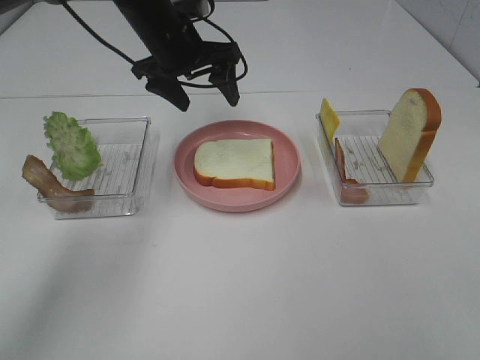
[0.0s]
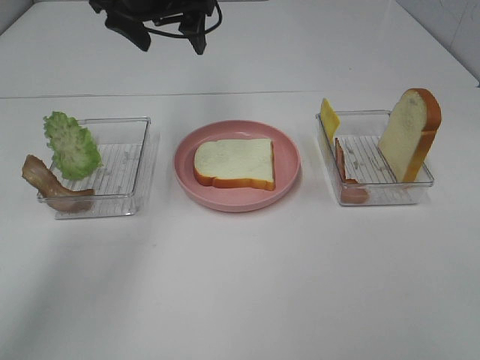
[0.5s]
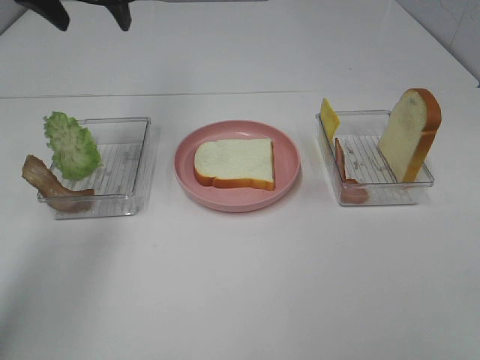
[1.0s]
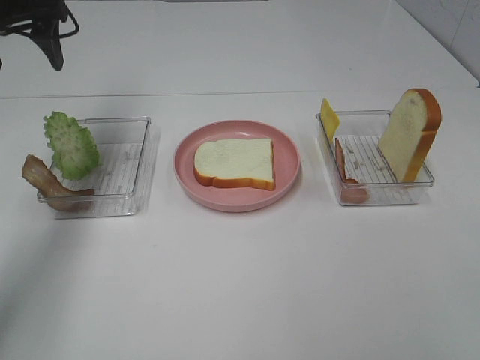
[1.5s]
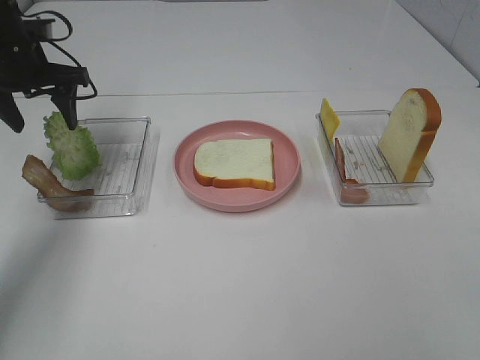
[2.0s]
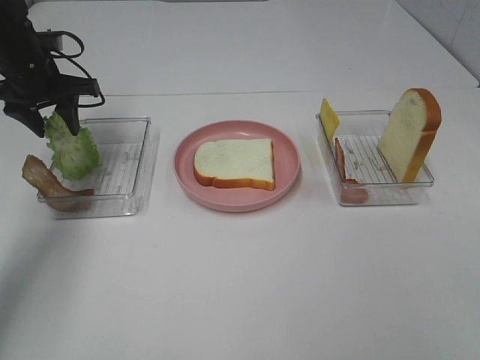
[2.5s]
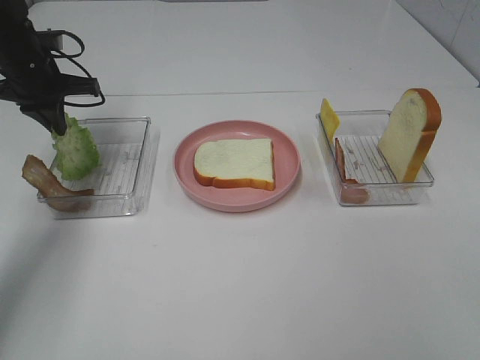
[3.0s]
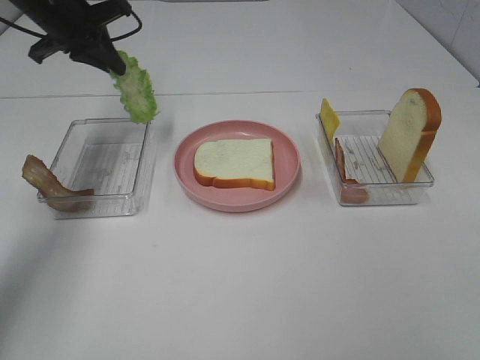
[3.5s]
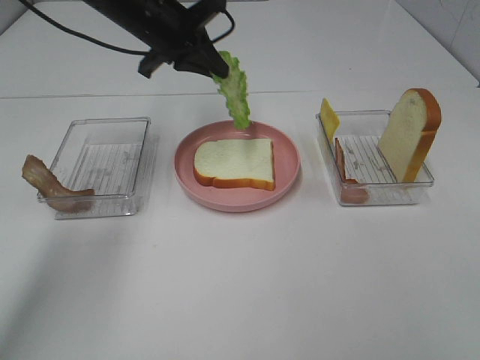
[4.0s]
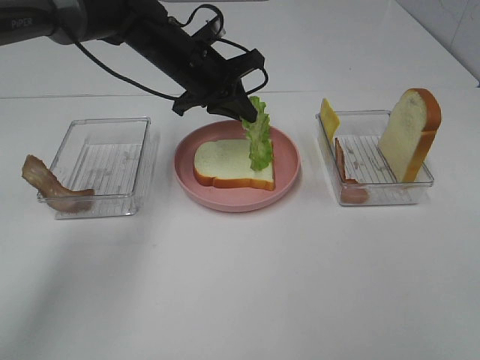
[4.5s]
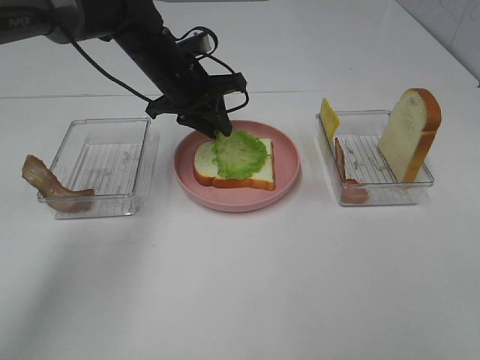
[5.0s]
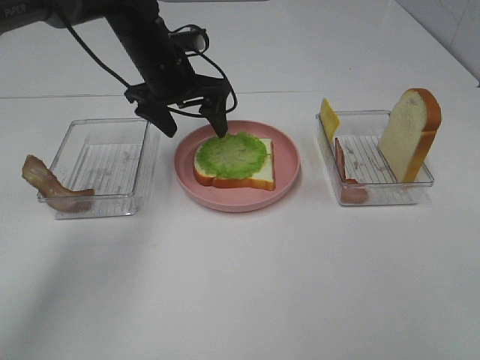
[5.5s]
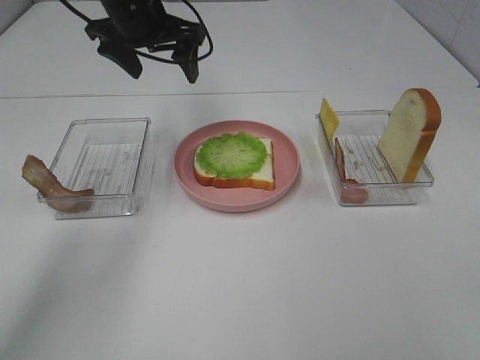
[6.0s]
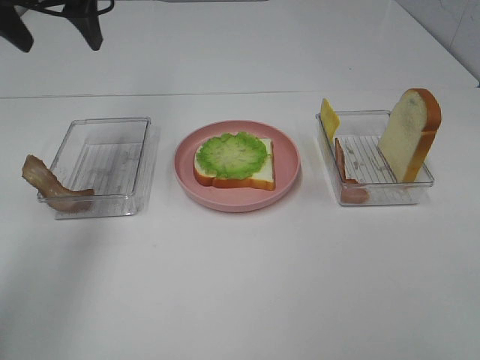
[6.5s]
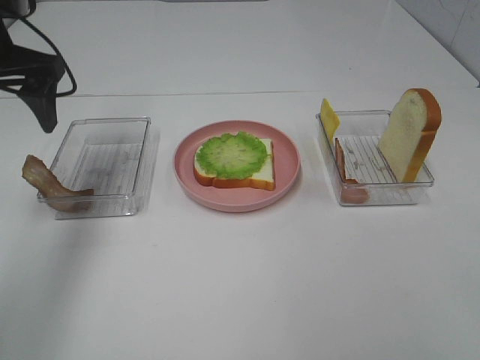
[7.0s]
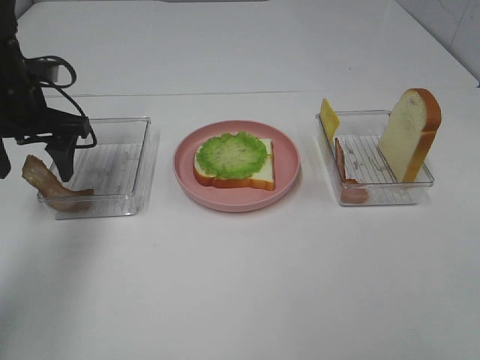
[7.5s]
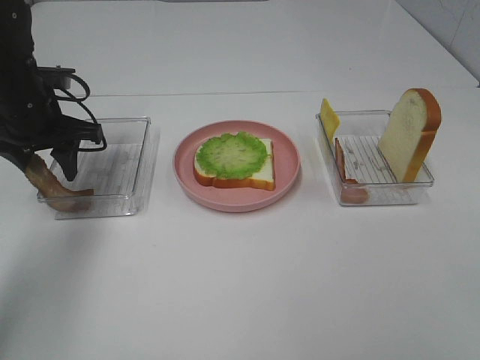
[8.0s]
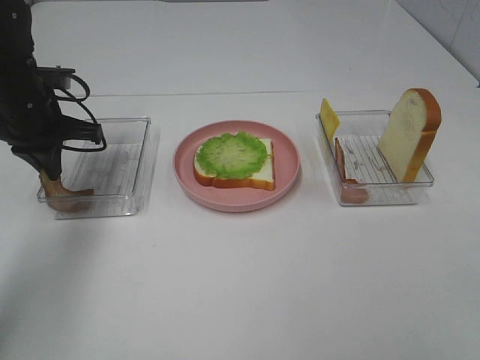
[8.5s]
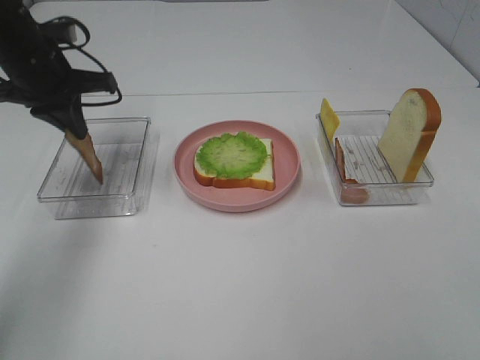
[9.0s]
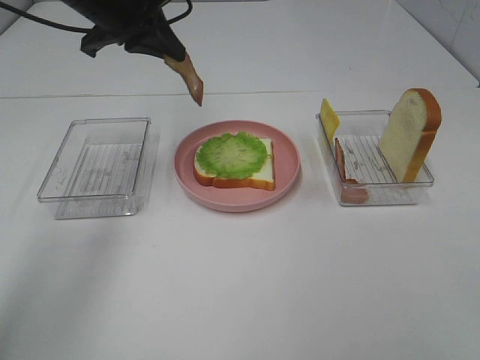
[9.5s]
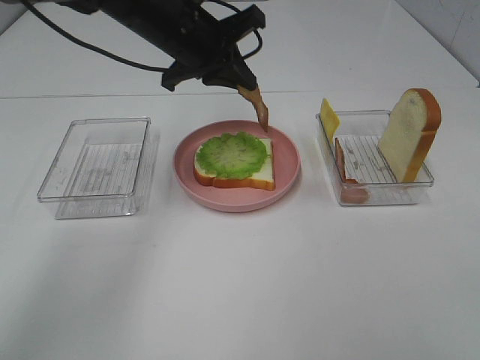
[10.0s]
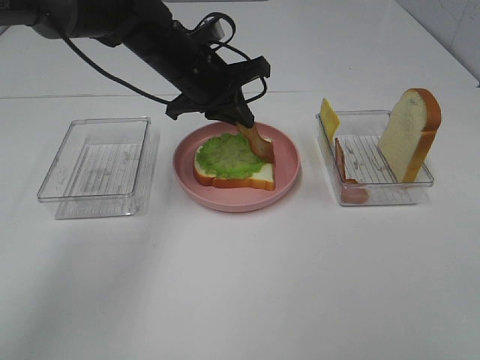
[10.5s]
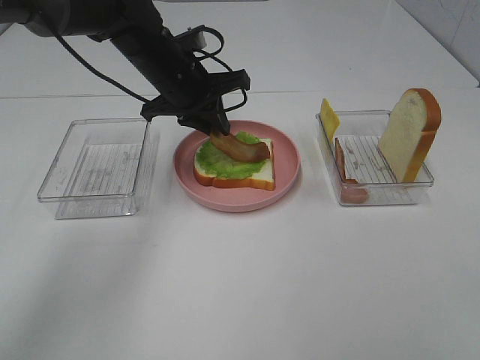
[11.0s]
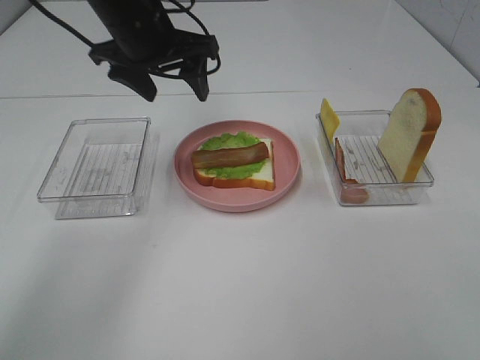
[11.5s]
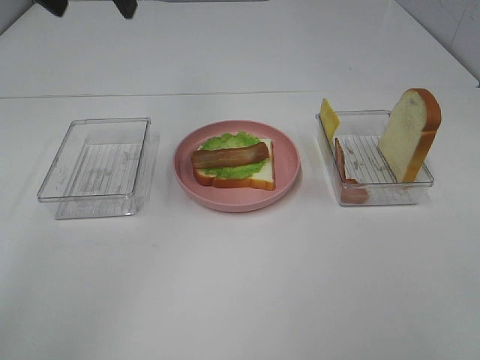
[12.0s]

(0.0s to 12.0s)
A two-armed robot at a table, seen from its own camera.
Task of the whole recording: Make sandwiches.
Step, 0.5s - 2.5s: Left hand:grab the lettuce slice.
Step, 3.0s - 5.0s: Left hand:place the lettuce slice on the bread slice.
Step, 5.5s - 8.0s: Left hand:grab the bacon.
Step, 8.5s - 11.0s: Left hand:place bacon on lettuce slice.
0.0s - 2.0s: The left gripper travels to the left by roughly 20 cm.
2.0s - 4.0s: The left gripper moves to the right, approximately 15 cm, and closes its fingers.
4.0s - 6.0s: The left gripper reaches approximately 5 cm downward, then returns, and opens.
6.0s - 8.0s: The left gripper travels to the left, downward and backward by approximately 15 cm, and closes its fingers.
8.0s - 10.0s: The left gripper moves to the right, approximately 20 cm, and closes.
10.0s - 12.0s: The left gripper shifts about 20 cm upward, to the left and backward, and opens its fingers.

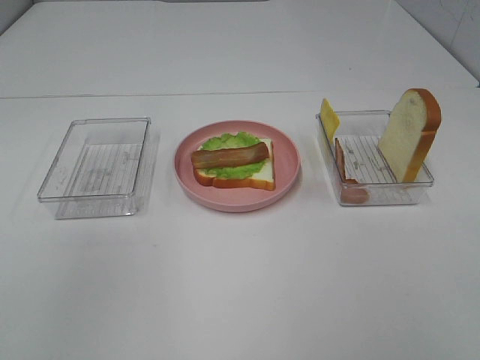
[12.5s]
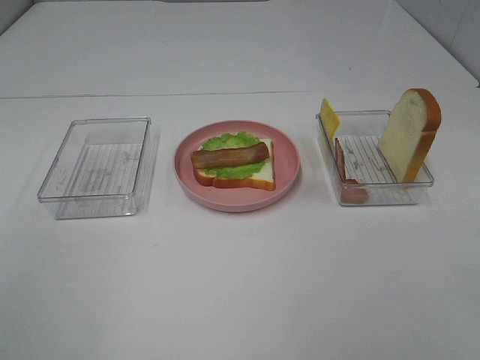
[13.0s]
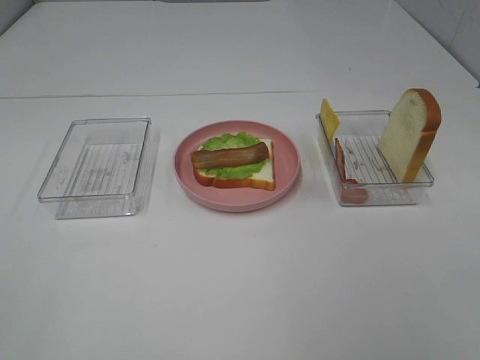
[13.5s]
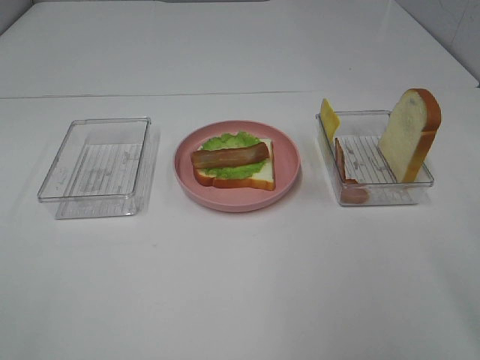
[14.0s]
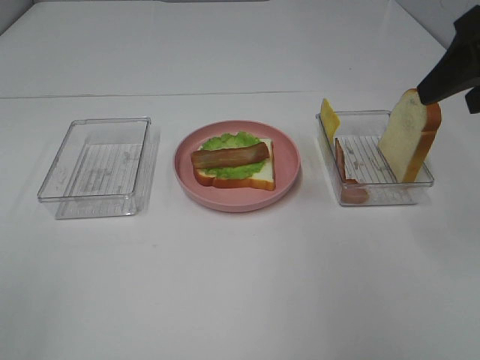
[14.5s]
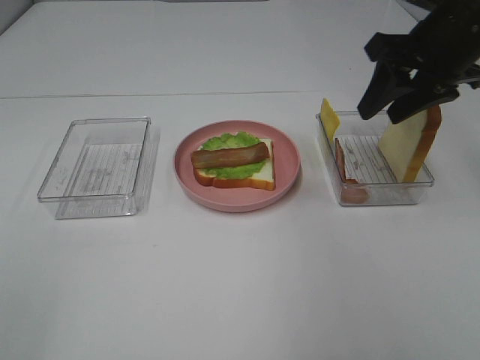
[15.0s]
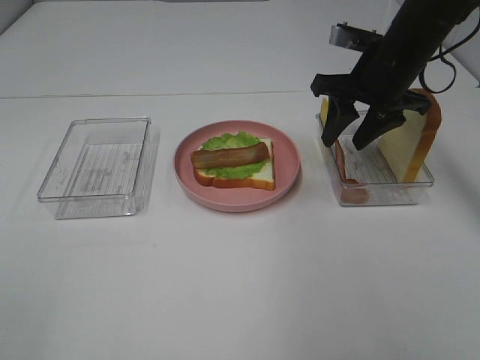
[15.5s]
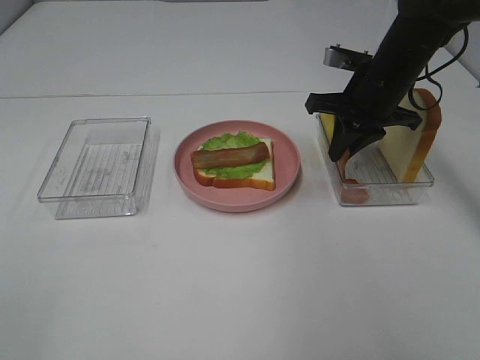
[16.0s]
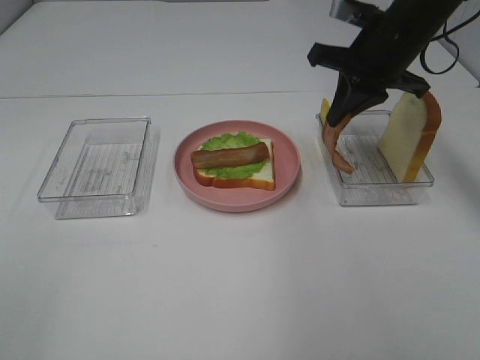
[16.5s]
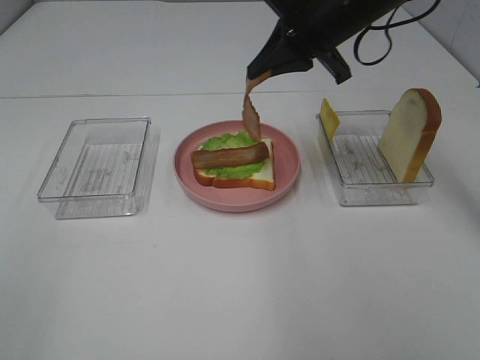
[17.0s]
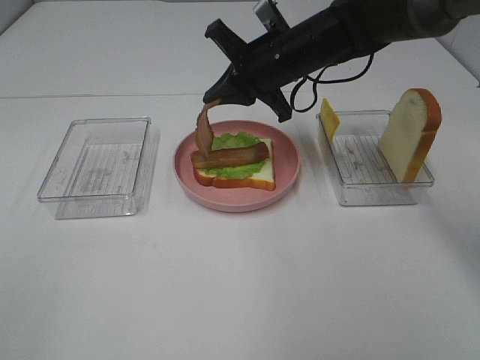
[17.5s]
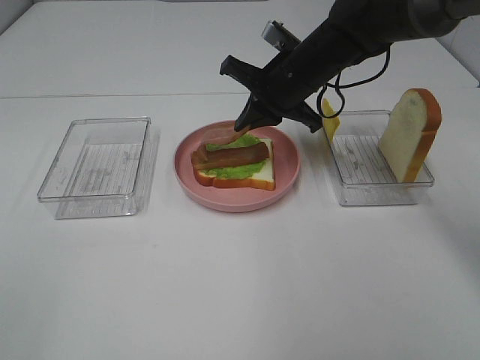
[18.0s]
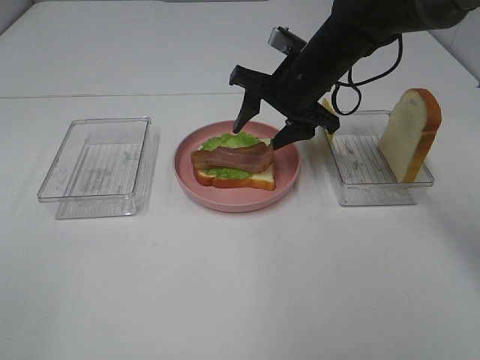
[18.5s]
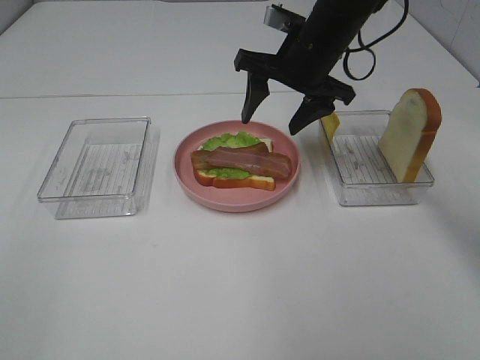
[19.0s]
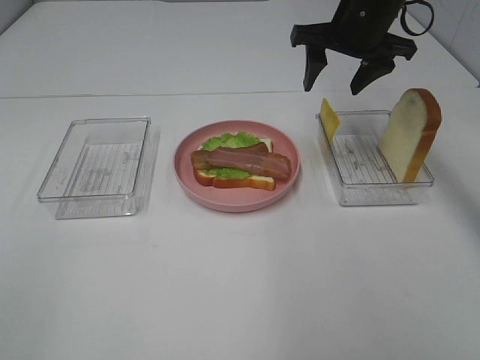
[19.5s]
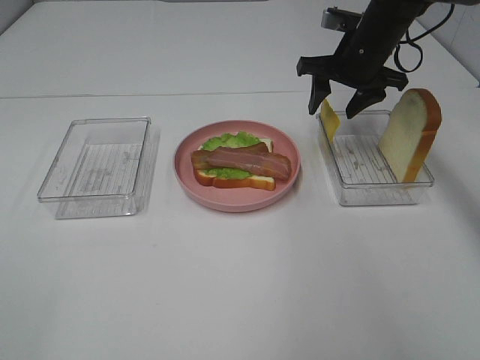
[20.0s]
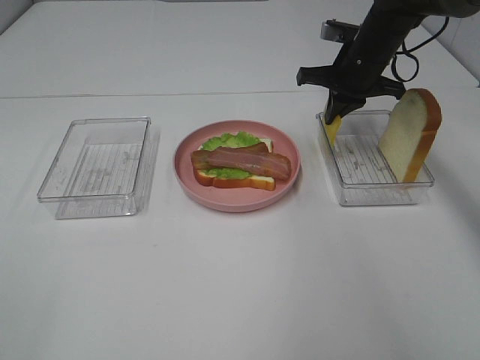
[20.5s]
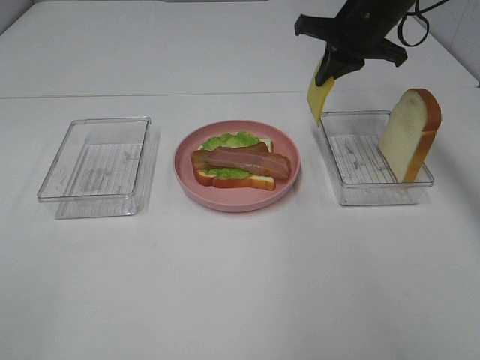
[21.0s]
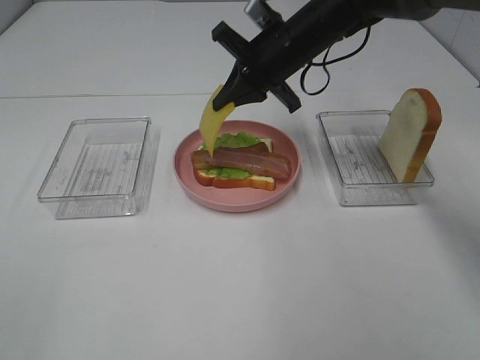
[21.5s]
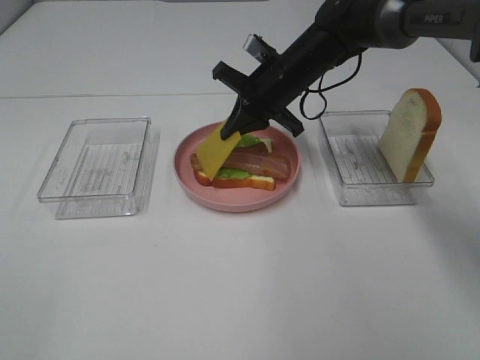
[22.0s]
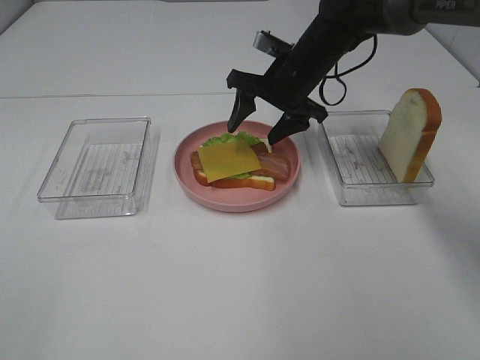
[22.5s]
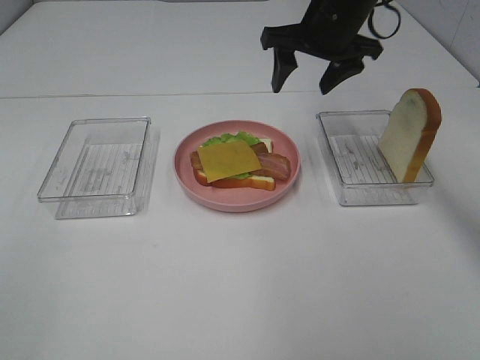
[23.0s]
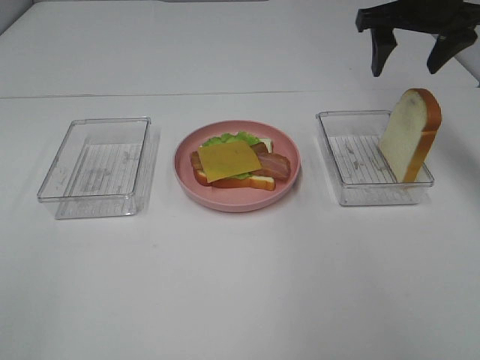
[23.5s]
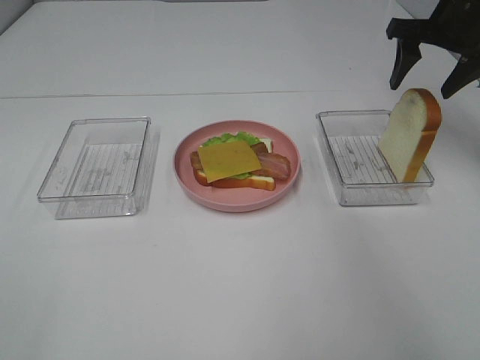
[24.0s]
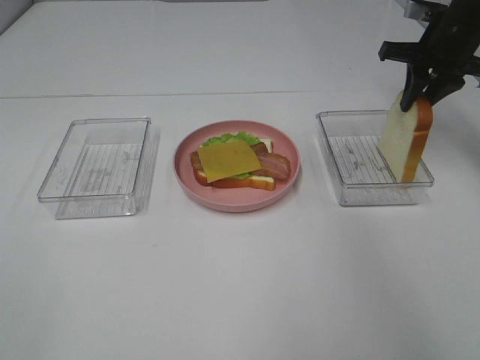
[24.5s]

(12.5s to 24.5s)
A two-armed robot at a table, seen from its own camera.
Task of the whole recording: Make sandwiches.
Step, 12.5s - 16.0s: Right hand:grab the bacon.
Step, 16.5s - 19.0s: Right hand:place bacon on bacon.
Step, 19.5s - 20.5s: Right hand:grab the cheese slice.
Step, 21.0s - 22.5s: Right hand:place the cheese slice on top of the bacon.
12.5s - 14.5s: The right gripper travels forward by about 30 cm.
14.5s - 16.5s: The right gripper moves forward, to the left and downward, roughly 15 cm, and closes.
16.5s - 18.5s: The right gripper goes about 10 cm to the left and downward, and opens up.
18.5s - 20.5s: The right gripper shifts approximately 10 cm to the right and forward, and closes.
20.5s - 22.5s: The right gripper is displaced to the left by approximately 10 cm, and opens up.
22.5s - 24.5s: The right gripper shifts about 20 cm to the right, and closes up.

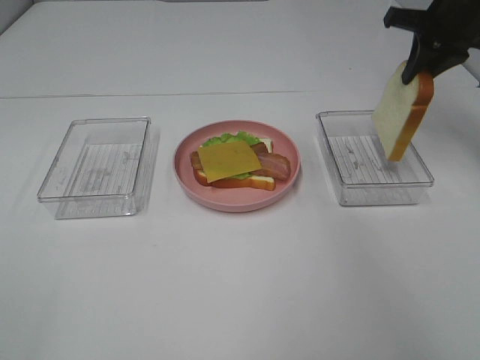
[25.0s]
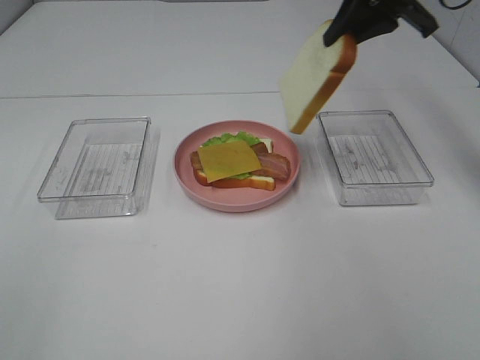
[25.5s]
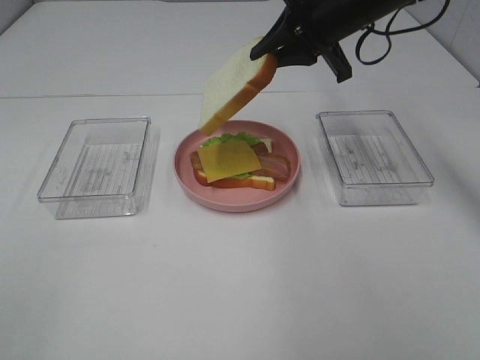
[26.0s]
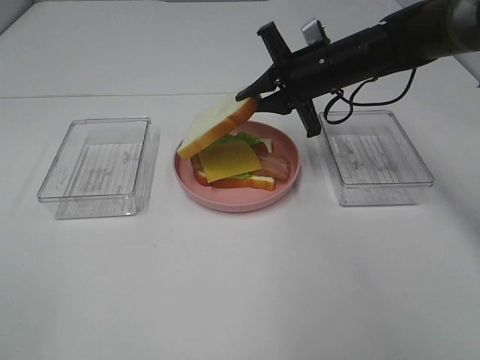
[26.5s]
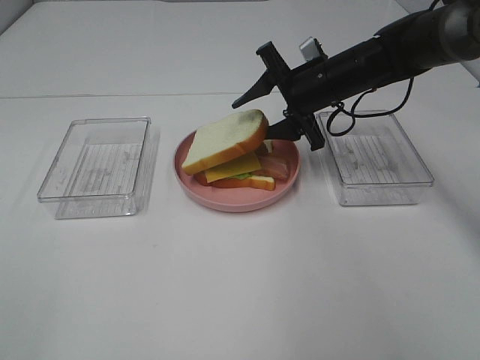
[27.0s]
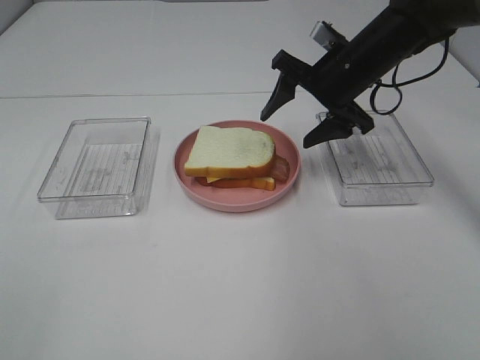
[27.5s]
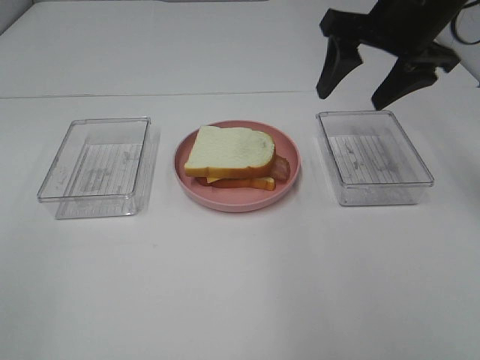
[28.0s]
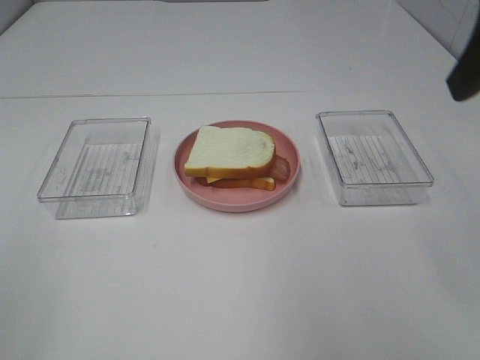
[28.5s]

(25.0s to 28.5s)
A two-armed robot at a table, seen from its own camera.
Task of the whole recording: Make sandwiches.
Step, 25.0s - 27.5s: Right hand:place the bread slice on the cheese slice.
25.0s - 27.0s: The right gripper goes about 20 cm to the left and downward, and opens its fingers.
27.0s - 28.5s: The right gripper heads backward, upward and to the right, covering about 35 cm.
